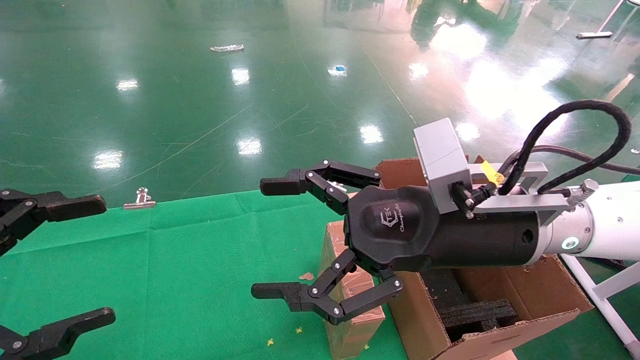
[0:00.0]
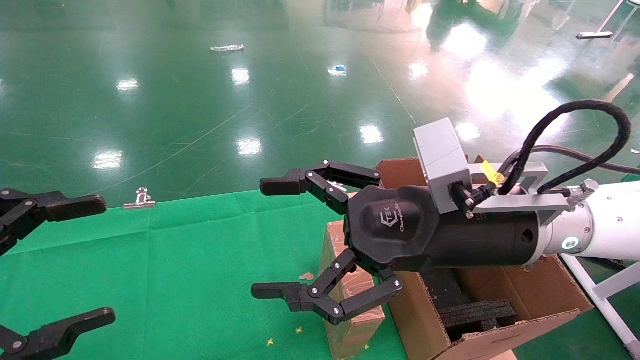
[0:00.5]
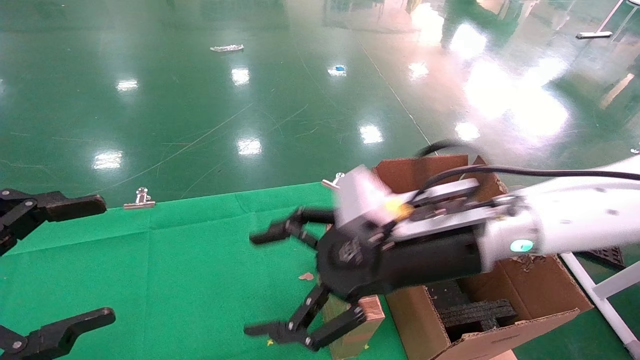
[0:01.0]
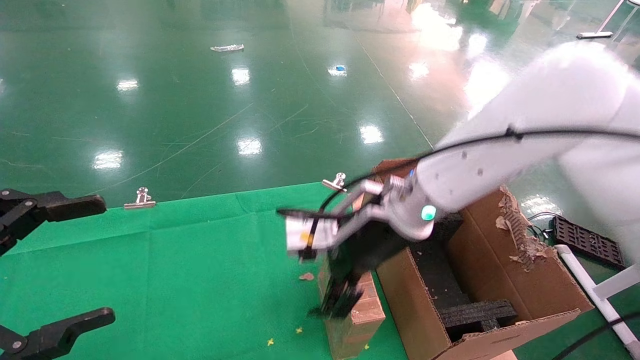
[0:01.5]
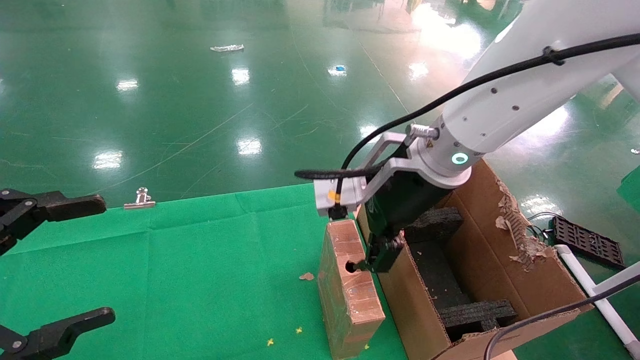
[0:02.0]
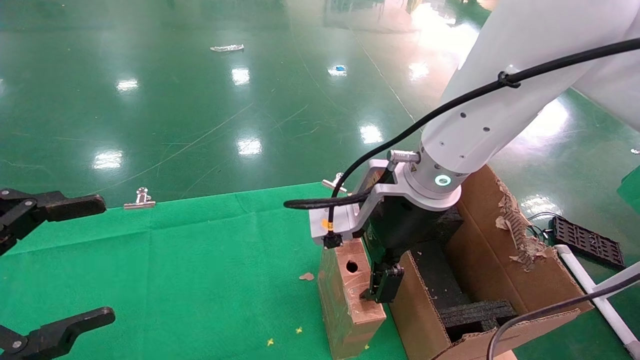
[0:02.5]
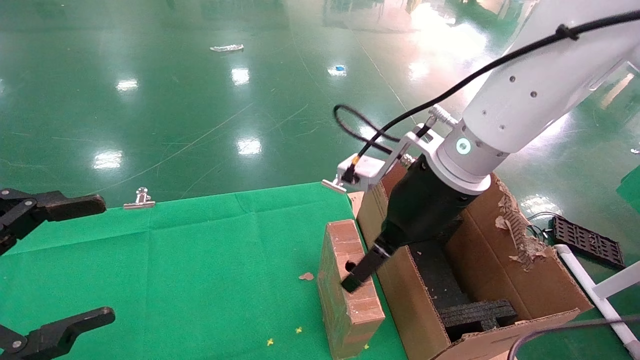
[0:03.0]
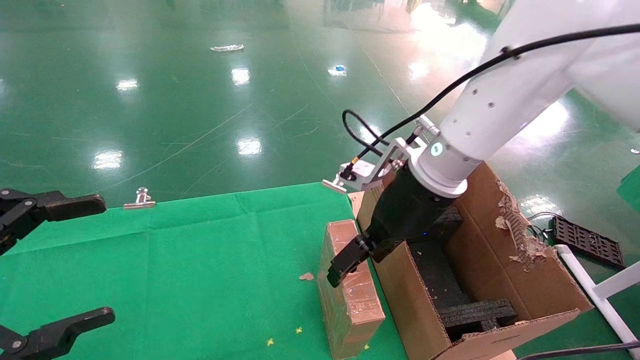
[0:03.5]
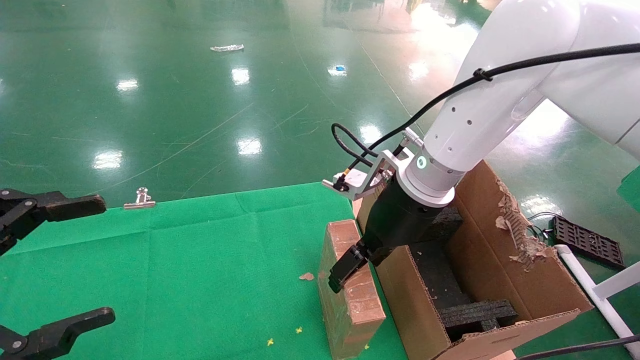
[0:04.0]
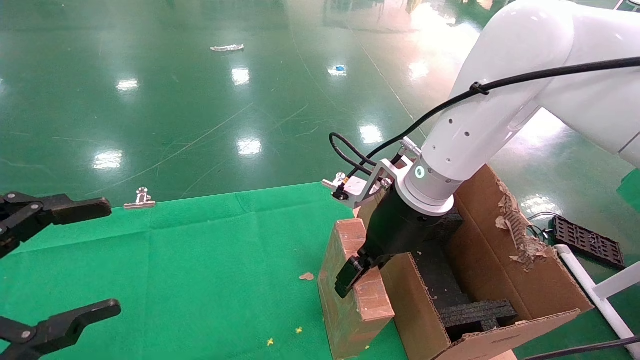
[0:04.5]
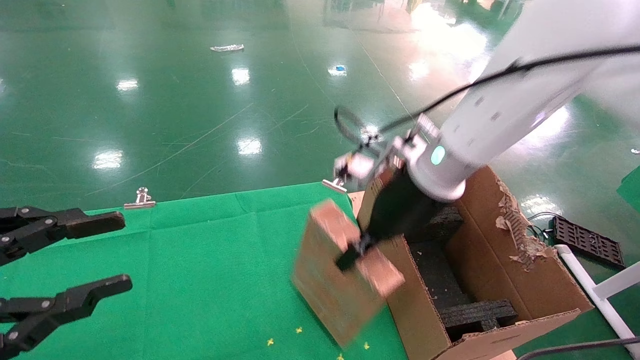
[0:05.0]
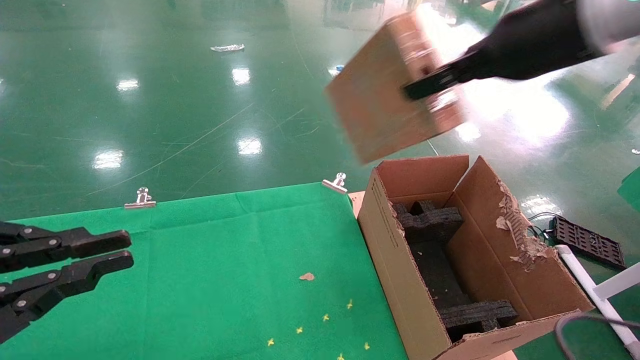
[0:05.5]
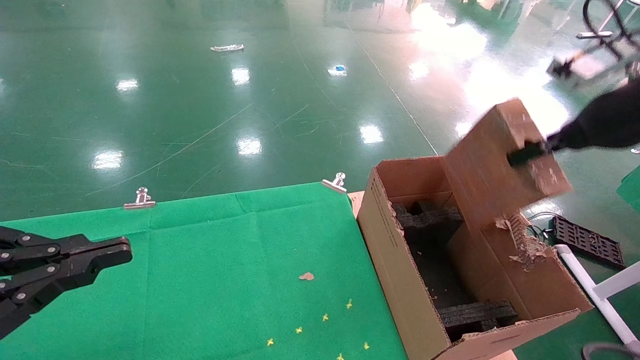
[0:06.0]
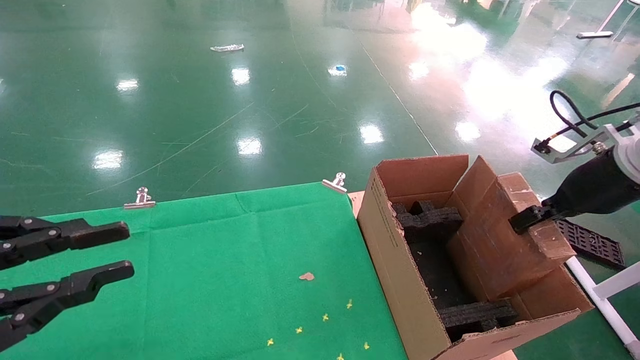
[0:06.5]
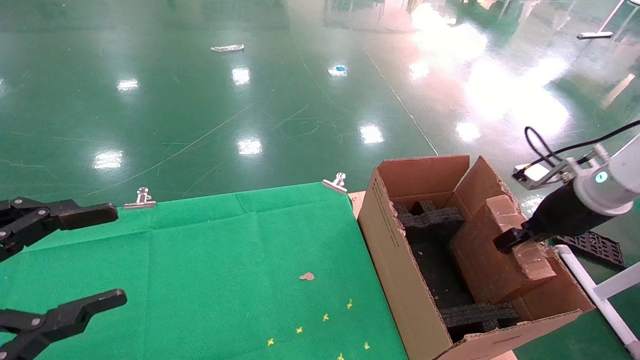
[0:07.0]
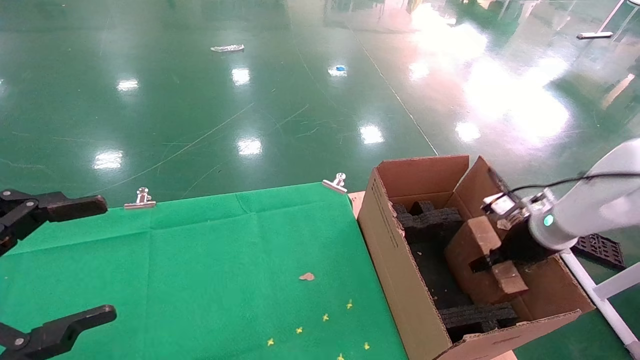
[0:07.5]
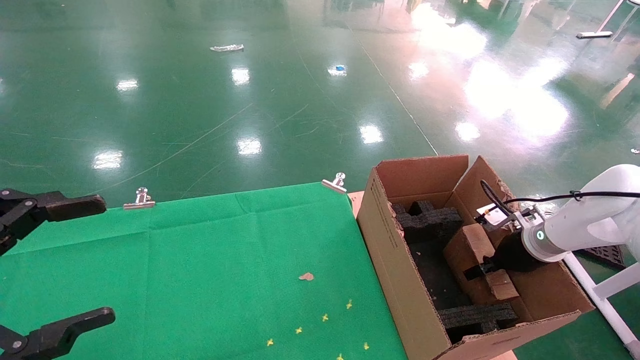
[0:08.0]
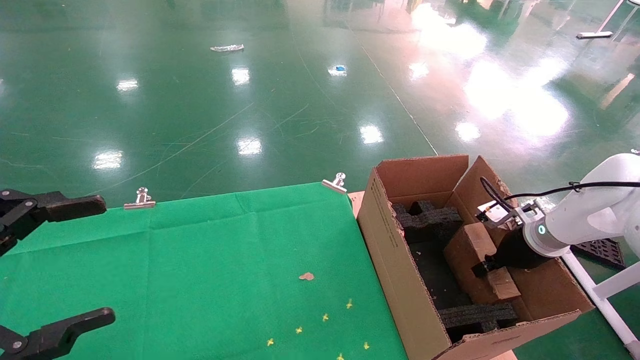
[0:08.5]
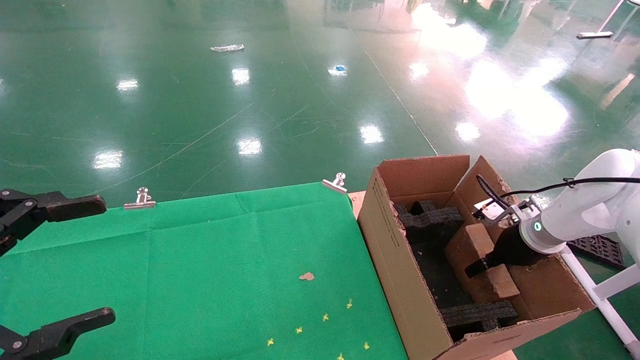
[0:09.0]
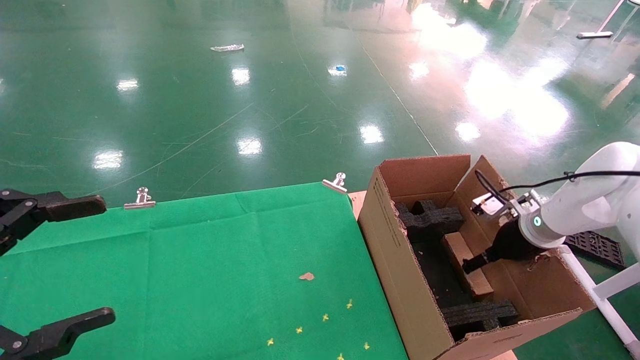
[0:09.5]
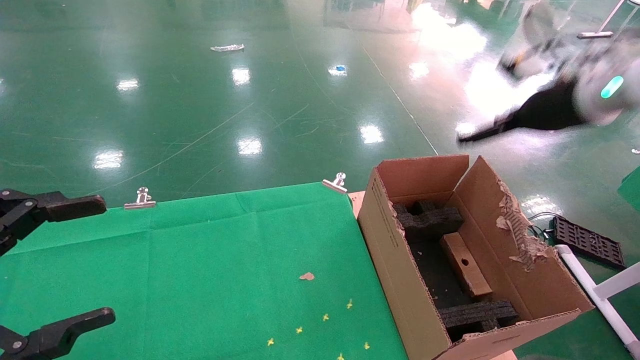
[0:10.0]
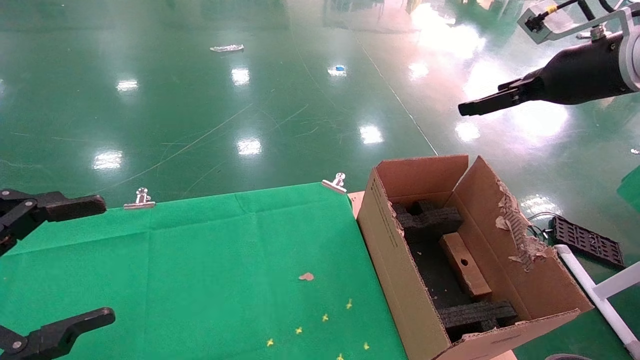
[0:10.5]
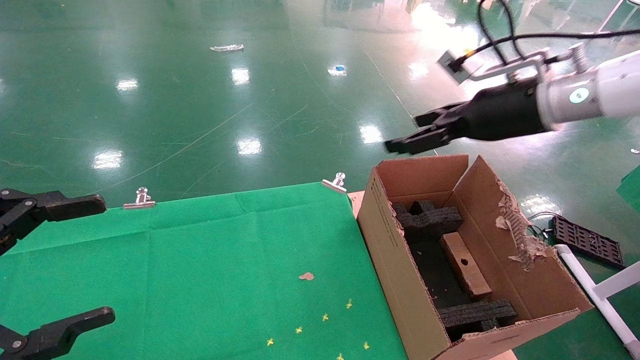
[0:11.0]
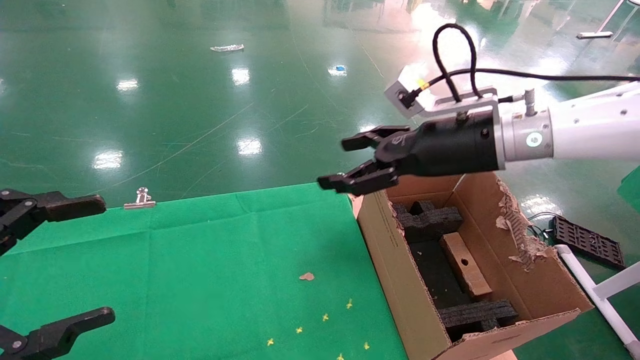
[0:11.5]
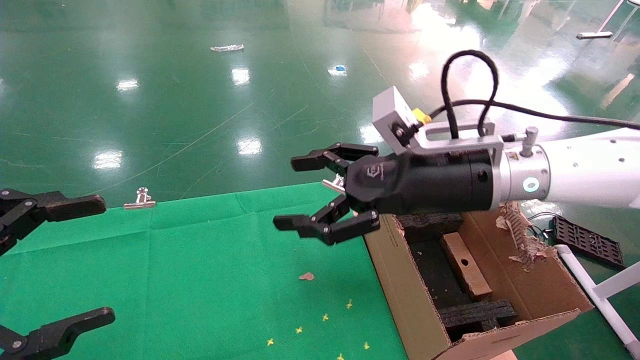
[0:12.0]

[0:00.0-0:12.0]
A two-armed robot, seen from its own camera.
Task of the whole recording: using a robotic arm to pick up a cardboard box and palace it the carton.
Step, 0:01.5 to 0:05.0: Pick up the mouse and the power cord paper box.
Step, 0:05.5 to 0:10.0: Place the mouse and the power cord paper box into the container.
0:00.0 to 0:02.0: The right gripper travels forward by roughly 10 cm.
0:02.0 to 0:04.0: The right gripper moves about 5 cm.
0:04.0 to 0:06.0: The left gripper closes up. The right gripper is displaced to the right and upward by some 25 cm, and closes up.
0:06.0 to 0:08.0: The left gripper opens. The right gripper moves downward, approximately 25 cm.
0:08.0 to 0:10.0: The right gripper is displaced upward by approximately 25 cm, and opens.
0:10.0 to 0:12.0: The right gripper shifts some 20 cm to the left.

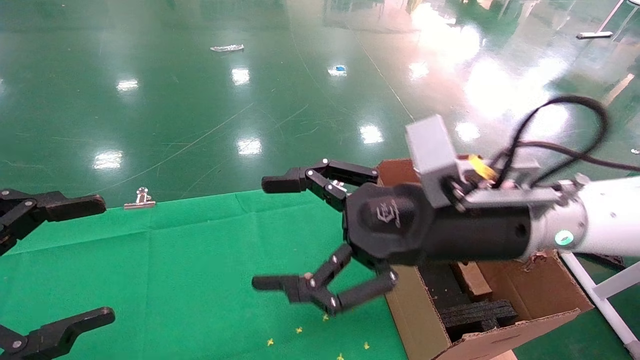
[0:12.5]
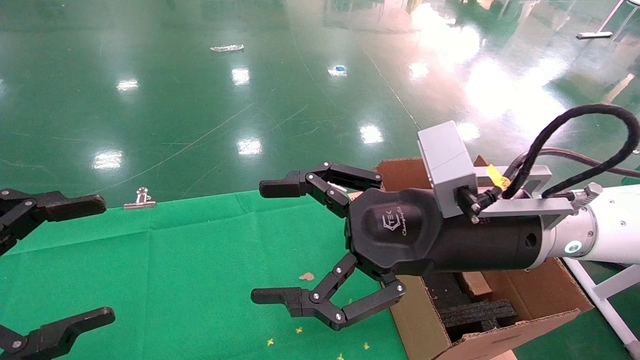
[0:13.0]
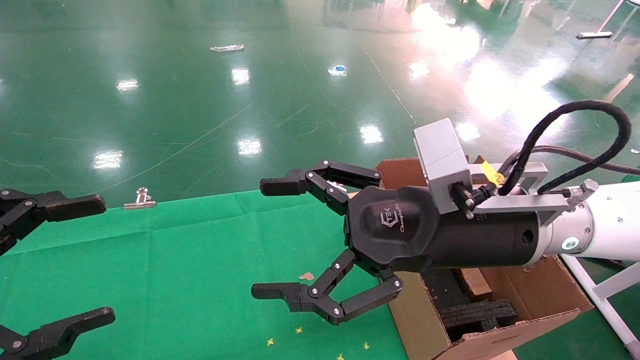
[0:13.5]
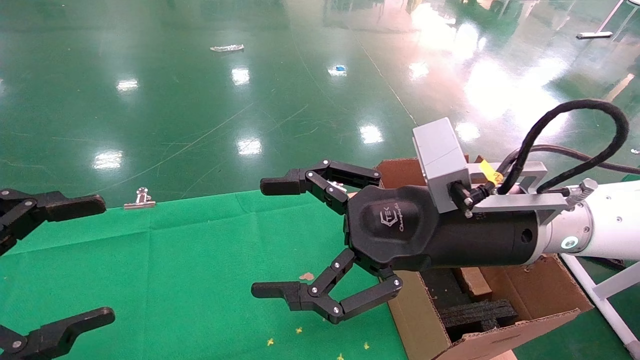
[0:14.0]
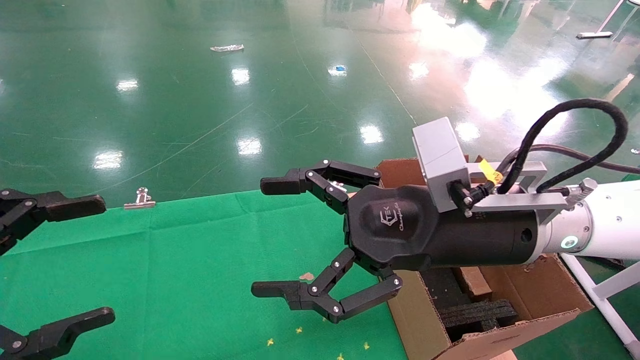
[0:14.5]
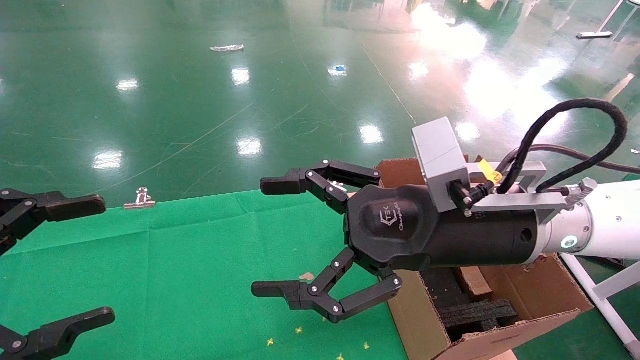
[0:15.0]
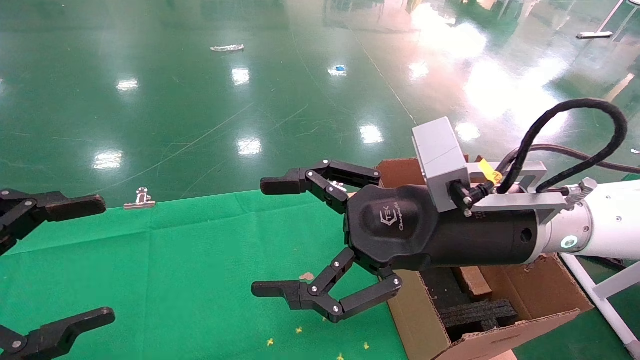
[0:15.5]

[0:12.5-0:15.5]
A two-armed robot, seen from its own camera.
Task of the whole recording: using a robotic arm to pick up a cardboard box and palace it the carton.
0:12.5 to 0:15.5: Both grippers stay put.

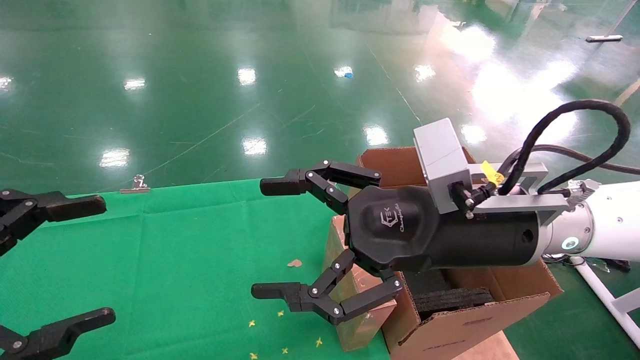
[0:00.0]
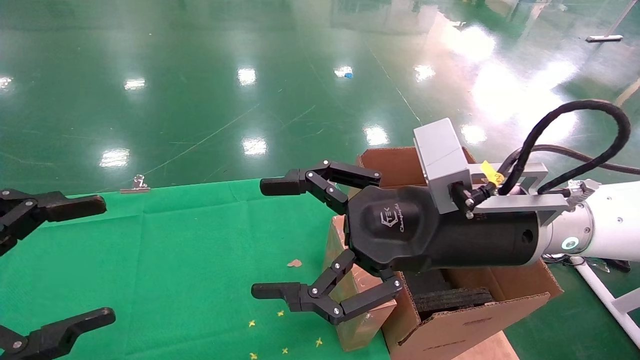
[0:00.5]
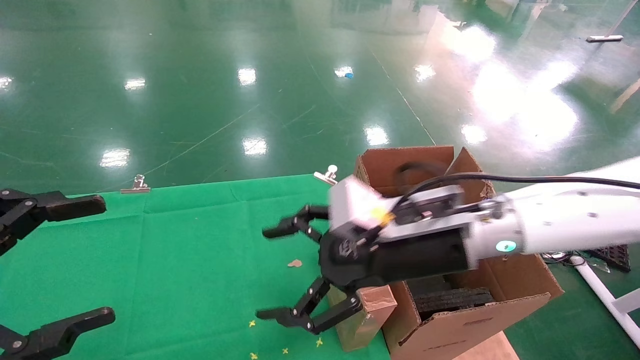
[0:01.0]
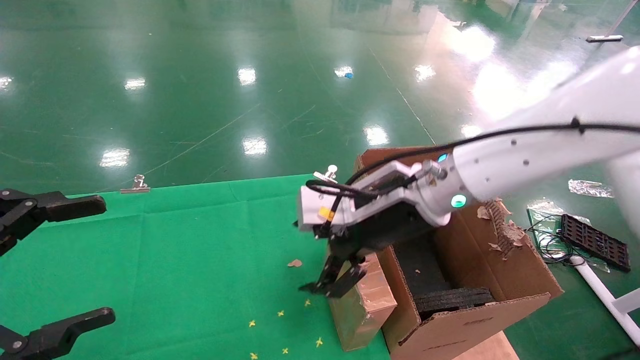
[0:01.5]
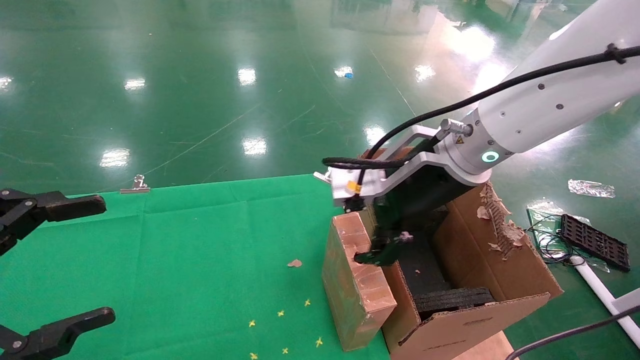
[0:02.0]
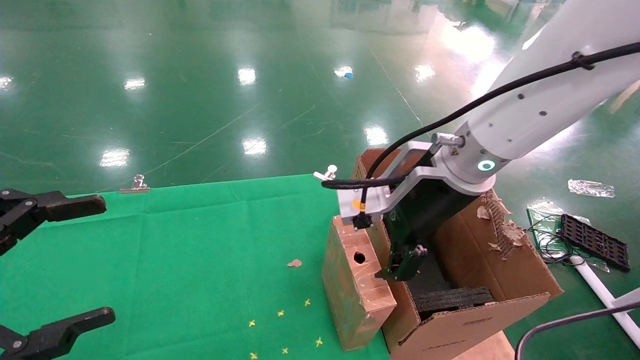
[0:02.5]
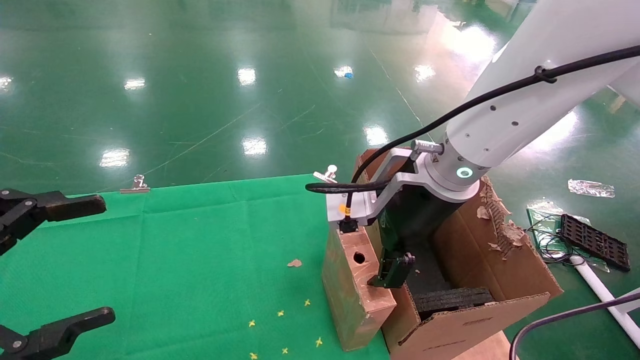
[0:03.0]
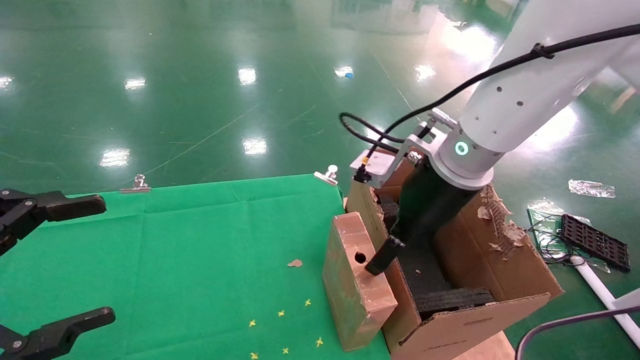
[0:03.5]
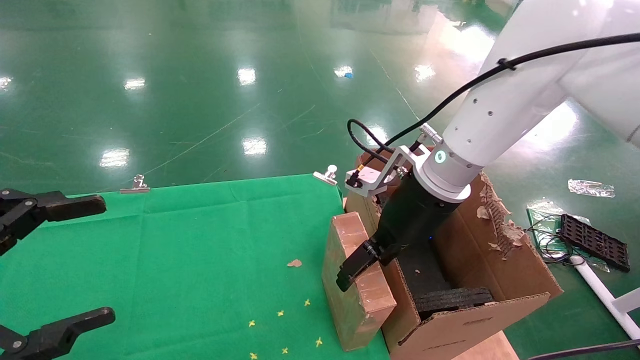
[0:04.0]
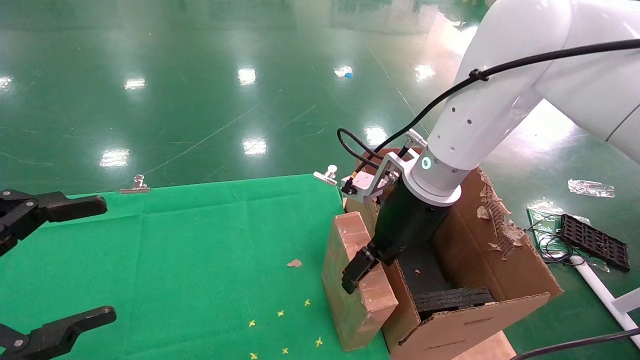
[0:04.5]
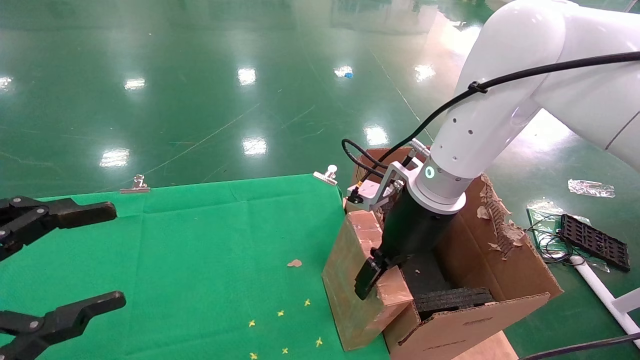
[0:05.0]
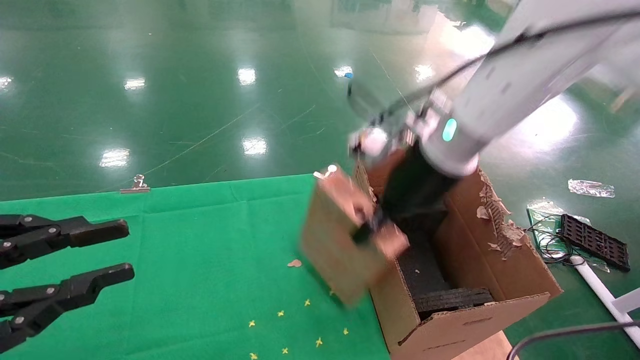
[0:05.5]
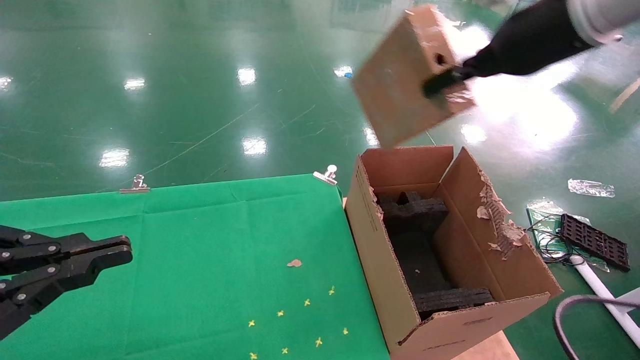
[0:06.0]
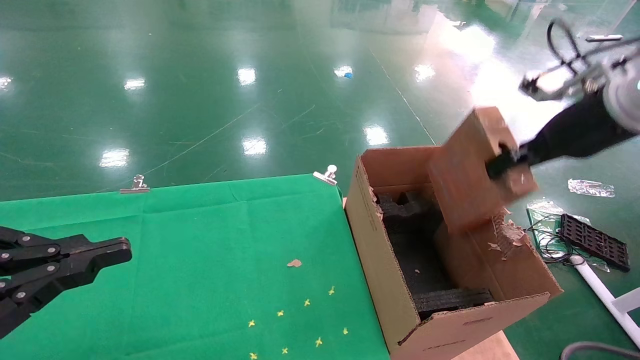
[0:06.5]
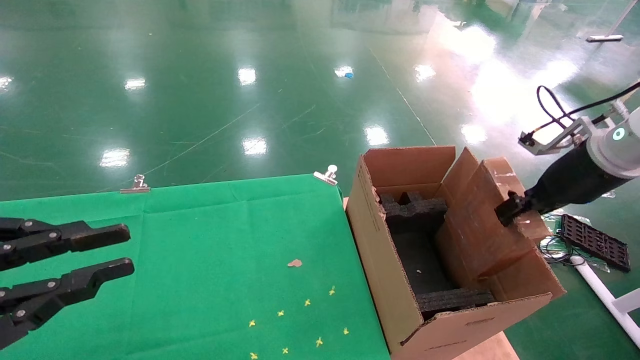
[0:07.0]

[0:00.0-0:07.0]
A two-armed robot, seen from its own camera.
Task of the whole recording: using a robotic arm to pick up a cardboard box and palace it the carton.
Step, 0:01.0 to 0:05.0: Pick up the mouse and the power cord paper box.
0:00.0 to 0:02.0: The right gripper is displaced forward by approximately 10 cm.
0:03.5 to 0:05.0: The grippers make only small movements.
0:05.0 to 0:07.0: The left gripper closes its fingers. Meanwhile the right gripper is displaced to the right by some 25 cm, and closes.
